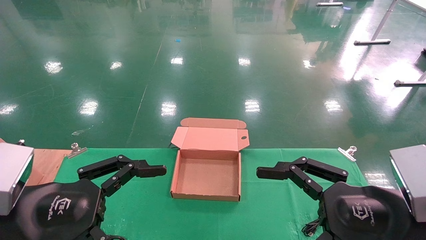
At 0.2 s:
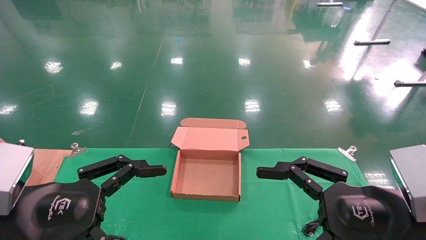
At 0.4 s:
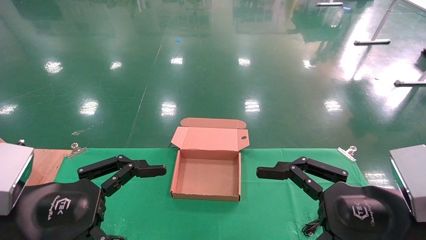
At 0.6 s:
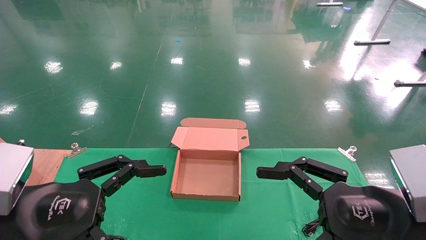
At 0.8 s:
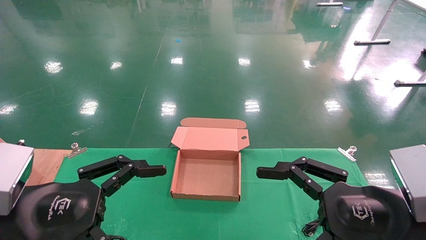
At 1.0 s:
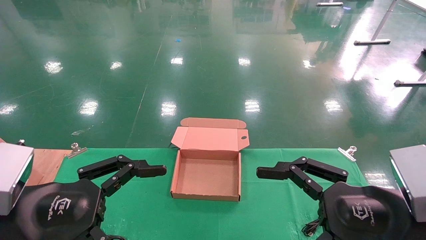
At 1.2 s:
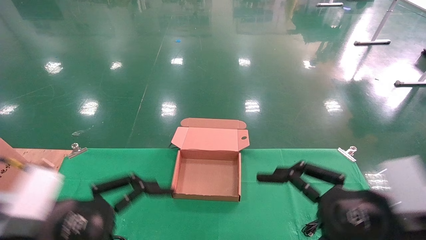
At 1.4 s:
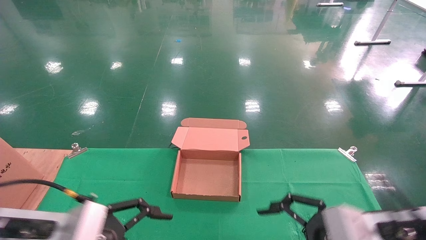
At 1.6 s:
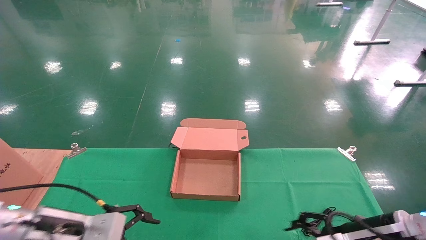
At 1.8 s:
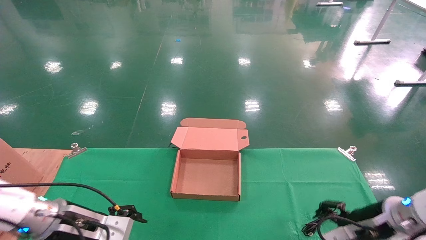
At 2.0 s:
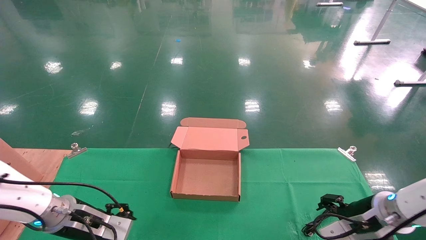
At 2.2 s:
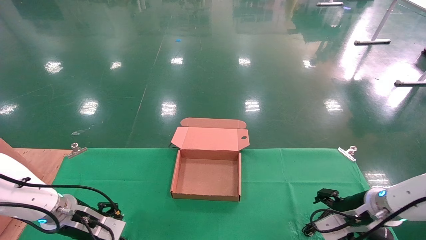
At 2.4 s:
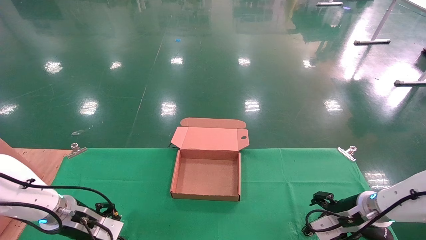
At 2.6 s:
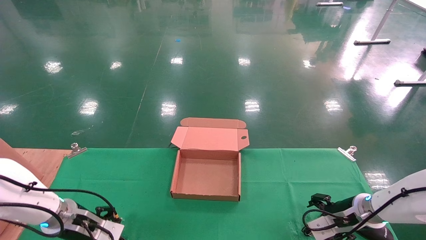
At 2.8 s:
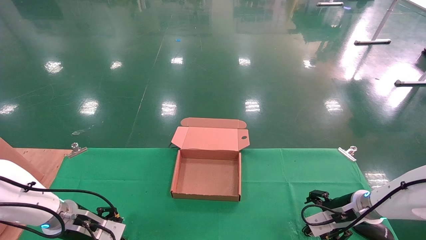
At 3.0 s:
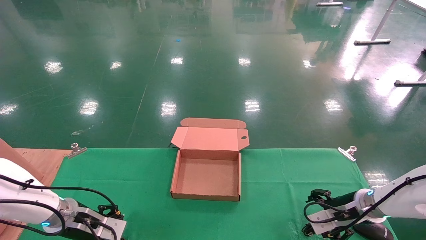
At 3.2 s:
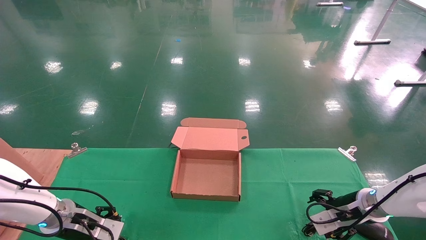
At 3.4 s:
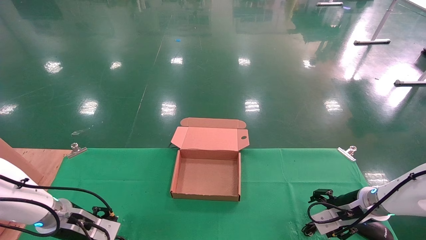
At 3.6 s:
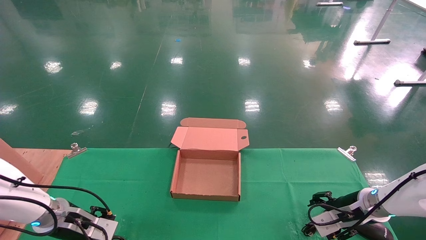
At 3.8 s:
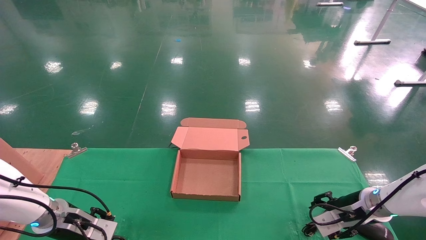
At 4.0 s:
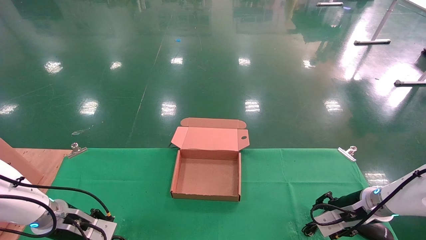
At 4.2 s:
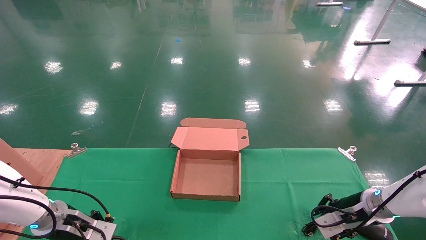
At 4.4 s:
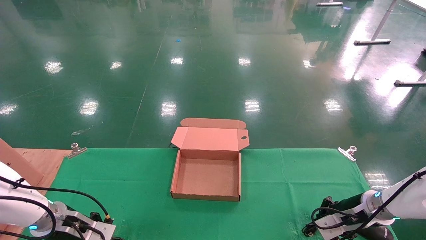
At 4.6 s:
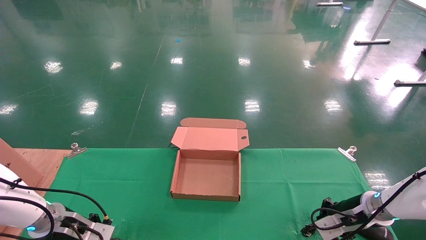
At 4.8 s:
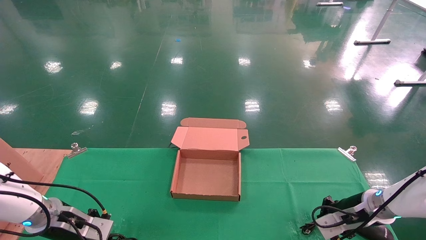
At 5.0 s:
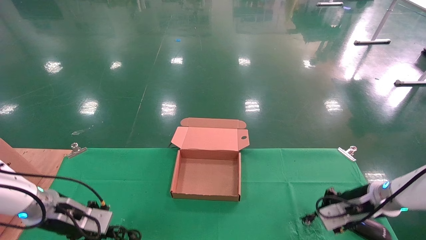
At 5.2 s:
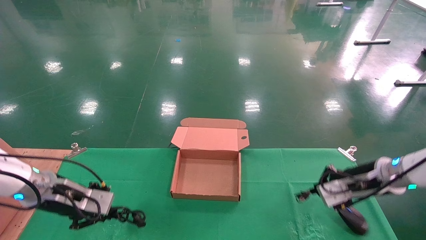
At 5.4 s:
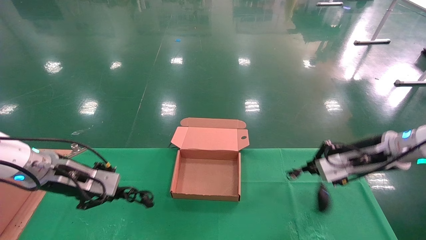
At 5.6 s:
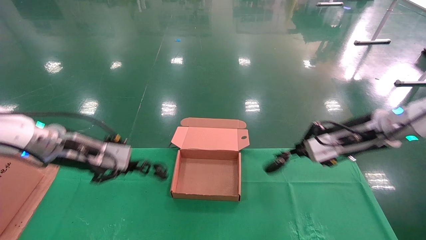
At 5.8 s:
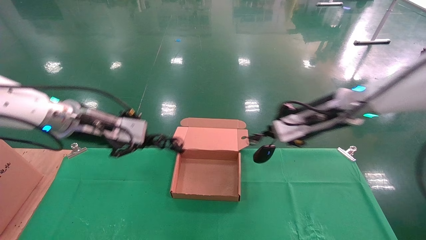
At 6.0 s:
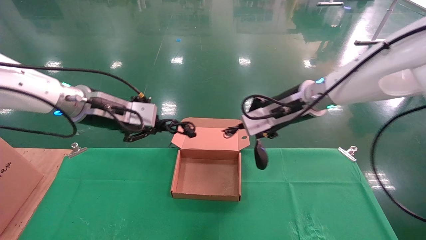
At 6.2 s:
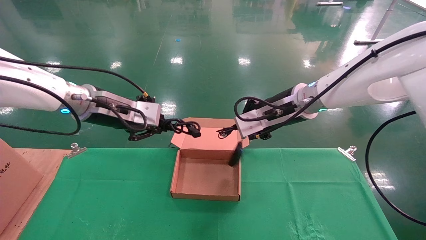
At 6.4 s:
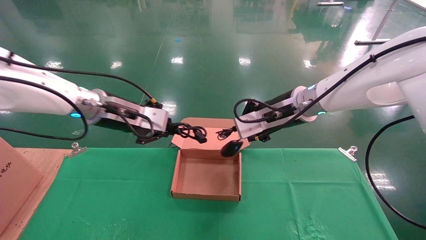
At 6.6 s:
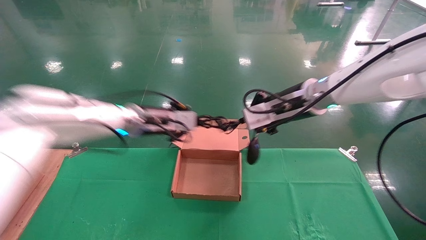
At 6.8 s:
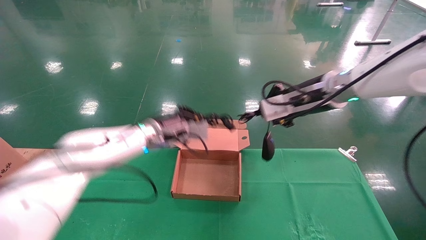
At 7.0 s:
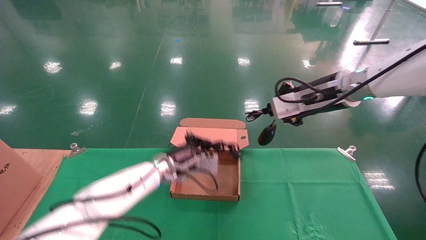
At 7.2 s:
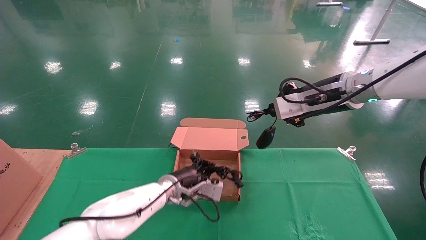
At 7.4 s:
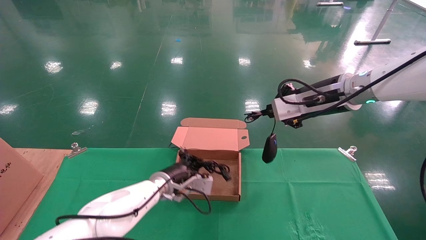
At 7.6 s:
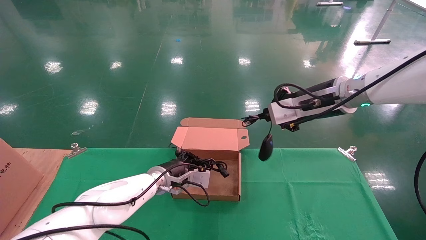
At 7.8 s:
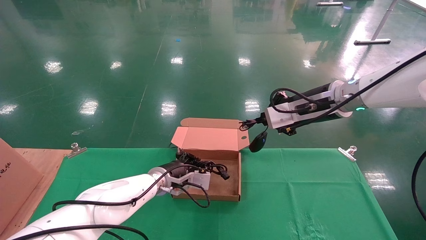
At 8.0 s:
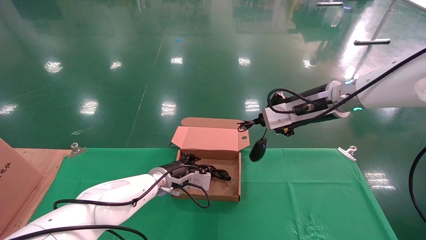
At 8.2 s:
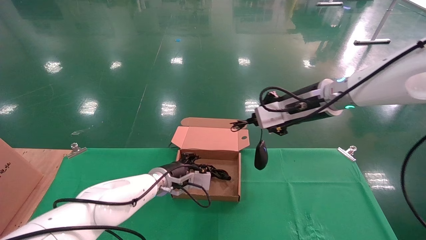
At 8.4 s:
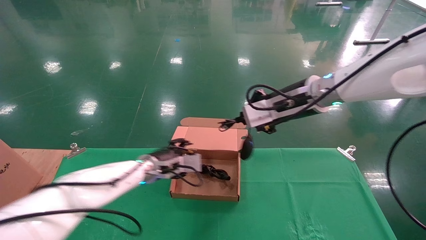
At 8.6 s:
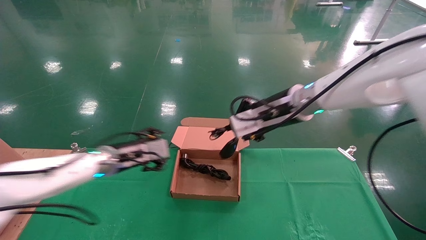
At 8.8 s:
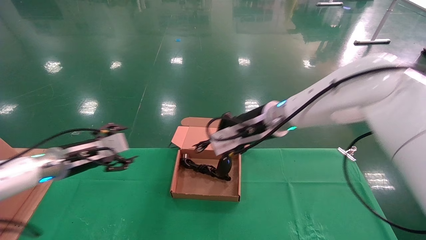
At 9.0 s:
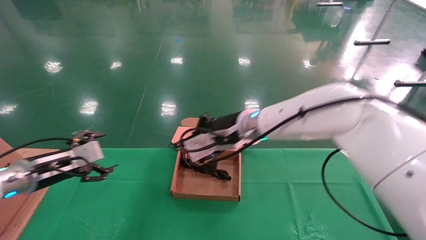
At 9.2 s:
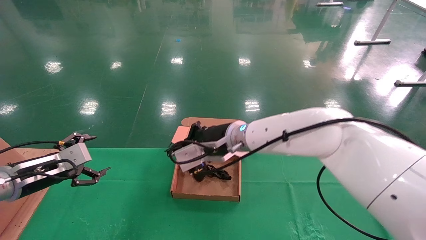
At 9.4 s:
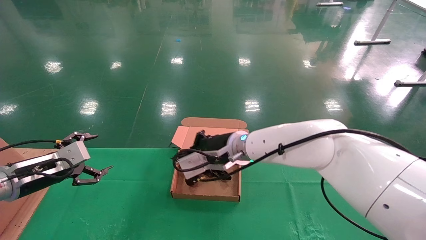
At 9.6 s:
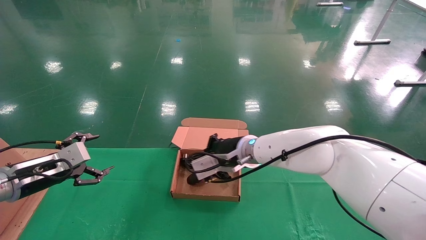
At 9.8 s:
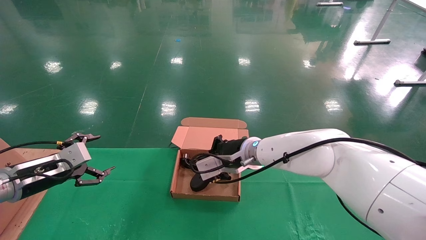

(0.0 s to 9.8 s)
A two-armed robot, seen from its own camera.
Step, 1.8 s - 5.6 s: Grab and lift both the mouse and power cord from the accessory packaging area at the same time.
0.0 s - 1.4 s: The grippers both shift downward and forward by roughly 10 cm.
1.4 s - 2.8 s: Both grippers travel together forward and downward, some 20 cm.
2.8 s - 4.2 s: The left gripper closes. The right gripper closes.
4.2 s - 5.6 s: Both grippers move upward, some 20 cm. The right gripper closes its fingers.
5.6 s - 7.0 s: The right gripper heads upward and to the left, covering roughly 10 cm. Meanwhile the left gripper goes approximately 25 cm to the right, downward and forward.
7.0 s - 8.4 s: The two grippers go approximately 5 cm to the left. The left gripper opens up.
8.4 s - 9.8 s: The right gripper travels downward and to the left by approximately 15 cm, while the left gripper moves to the left and backward, about 25 cm, and opens.

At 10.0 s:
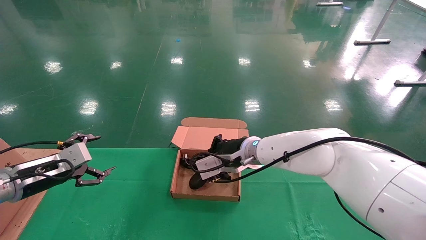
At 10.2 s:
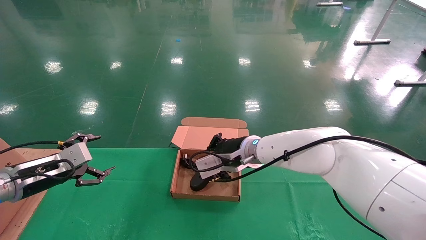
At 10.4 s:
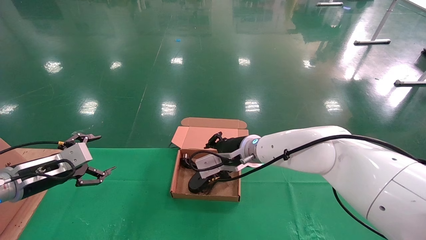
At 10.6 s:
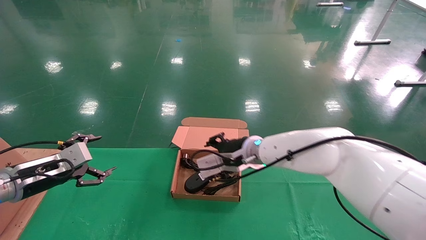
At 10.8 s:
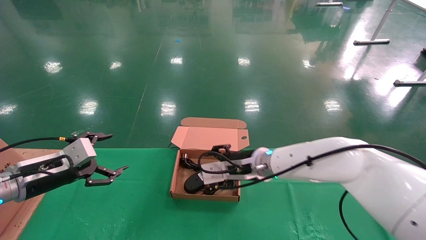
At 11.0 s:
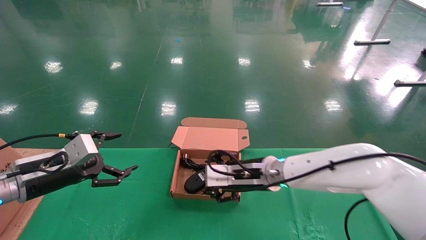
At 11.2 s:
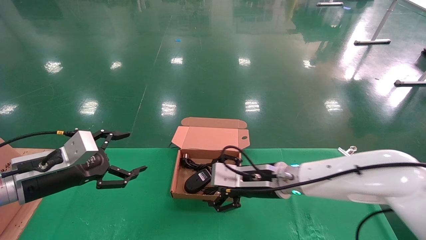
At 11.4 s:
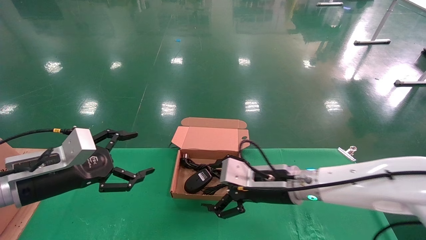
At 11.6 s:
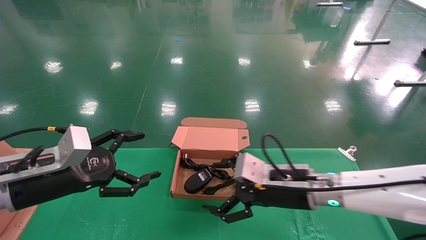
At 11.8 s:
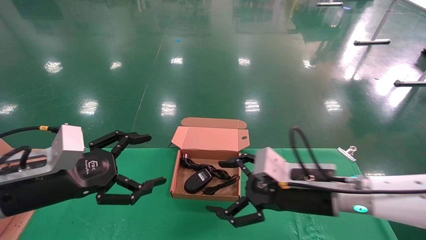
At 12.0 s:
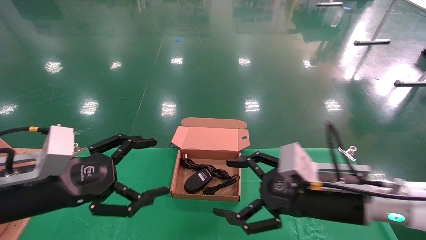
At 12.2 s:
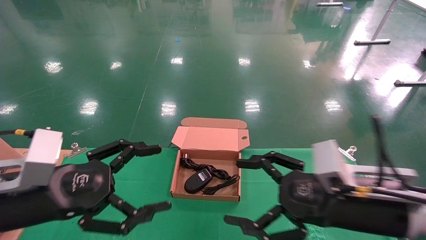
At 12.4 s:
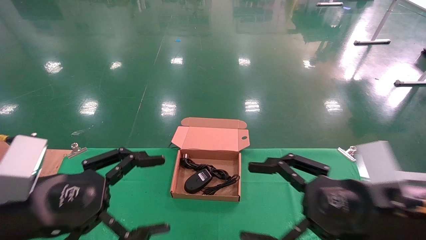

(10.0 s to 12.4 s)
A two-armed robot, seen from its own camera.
10.0 s - 11.2 s: The right gripper moves backward and to the right, approximately 10 cm, and opens, while the left gripper travels to the right by roughly 5 cm.
11.2 s - 12.4 s: The right gripper goes about 20 cm backward and to the right. The left gripper moves backward and to the right, about 15 cm.
